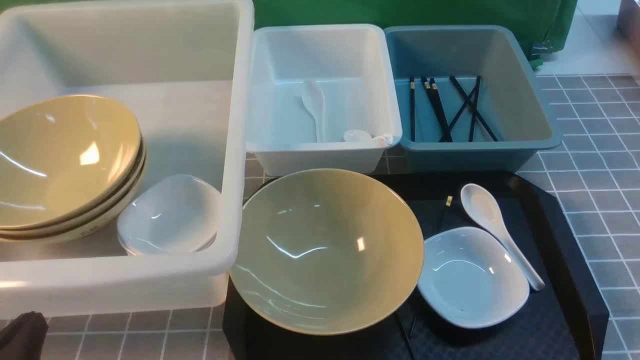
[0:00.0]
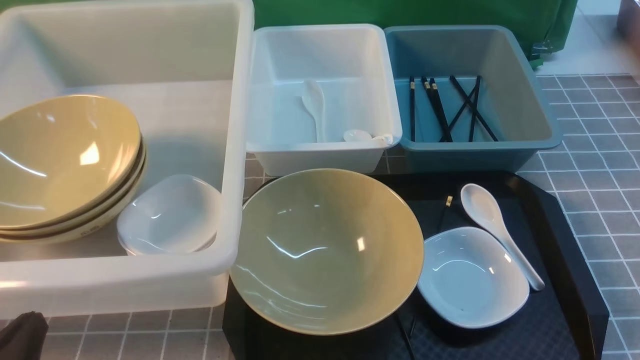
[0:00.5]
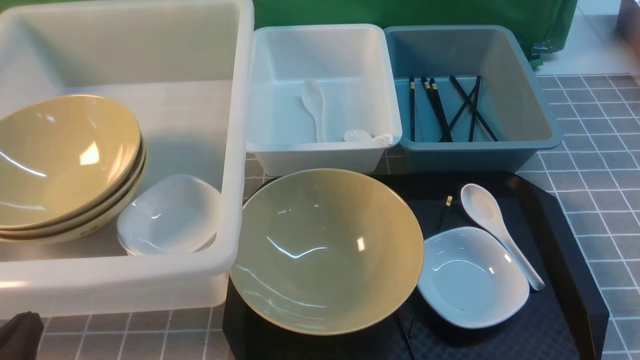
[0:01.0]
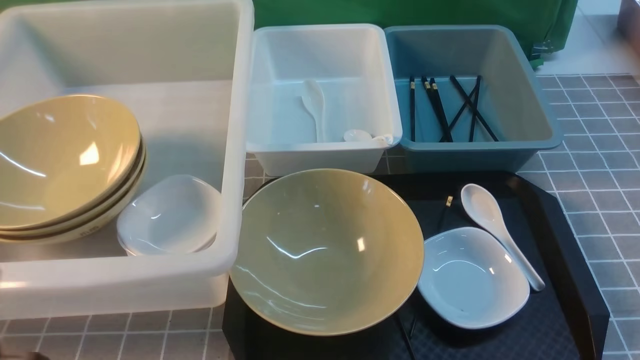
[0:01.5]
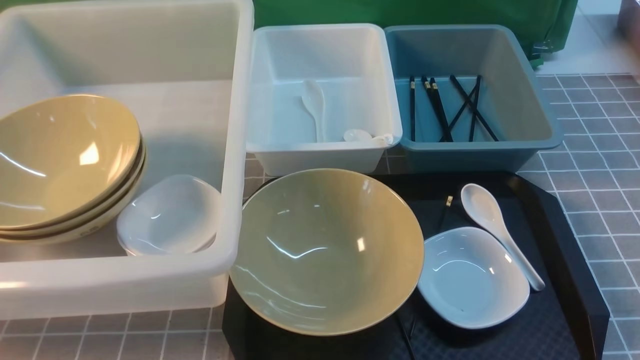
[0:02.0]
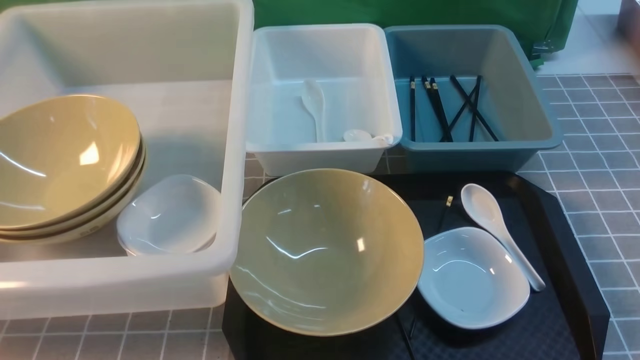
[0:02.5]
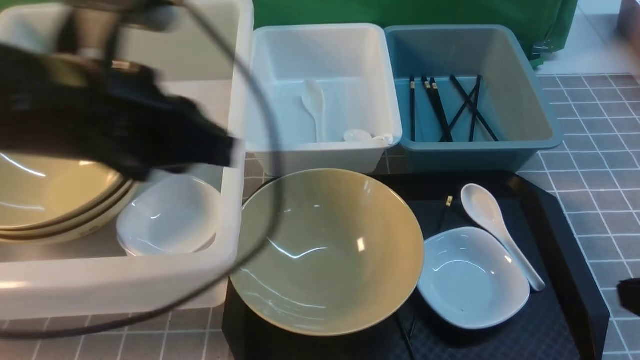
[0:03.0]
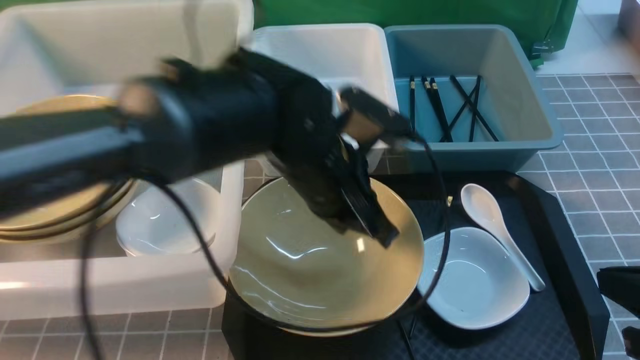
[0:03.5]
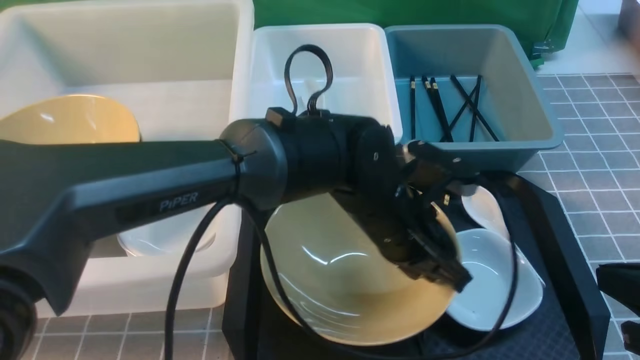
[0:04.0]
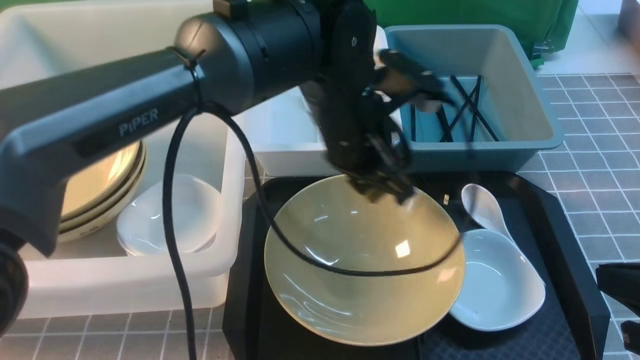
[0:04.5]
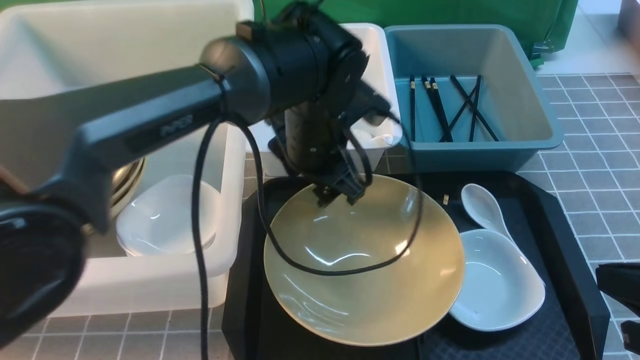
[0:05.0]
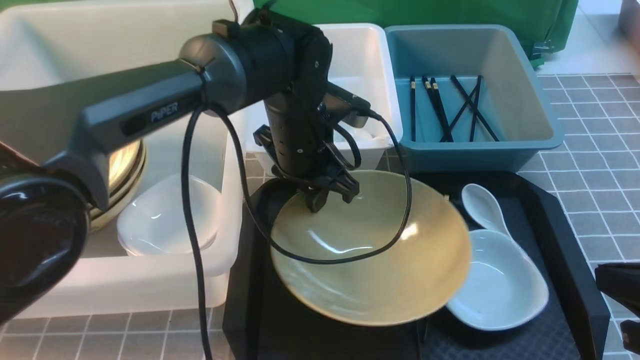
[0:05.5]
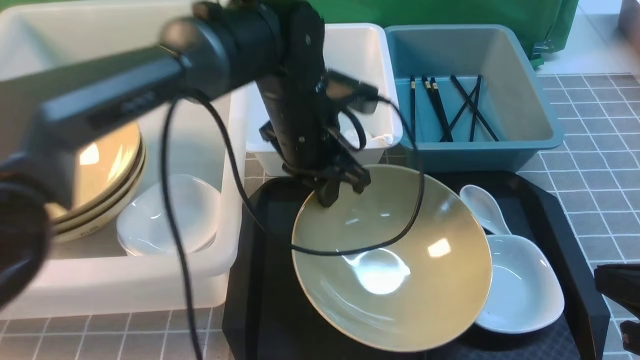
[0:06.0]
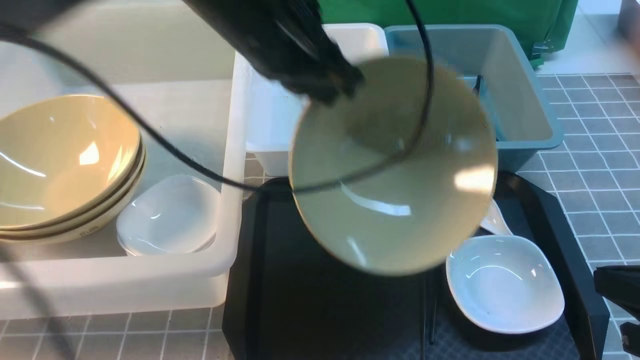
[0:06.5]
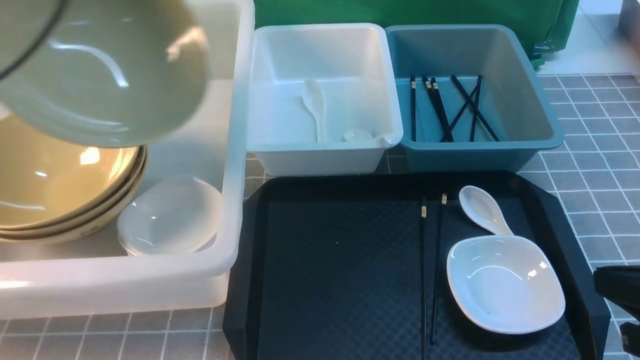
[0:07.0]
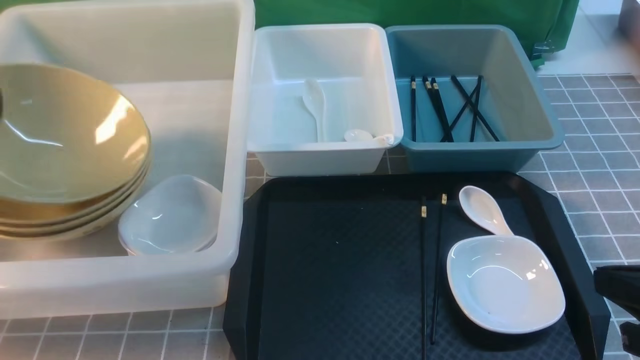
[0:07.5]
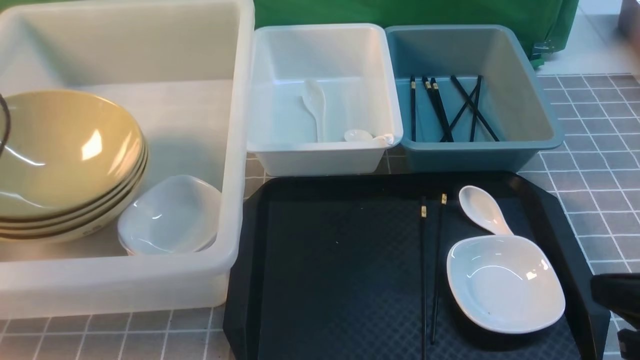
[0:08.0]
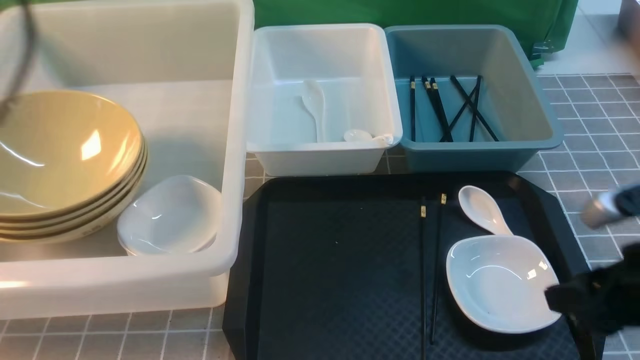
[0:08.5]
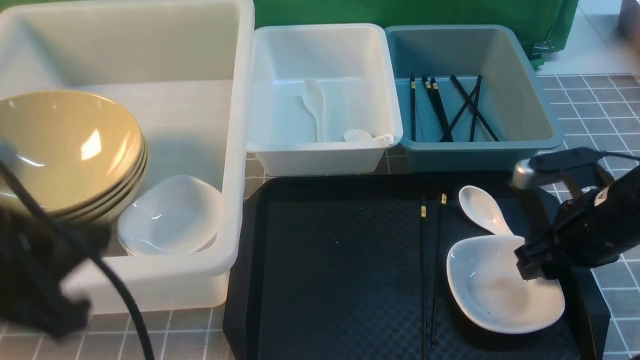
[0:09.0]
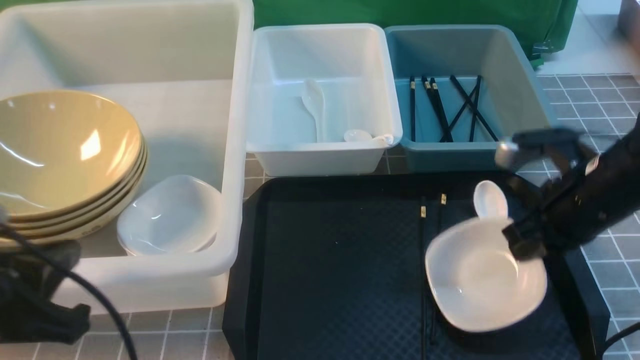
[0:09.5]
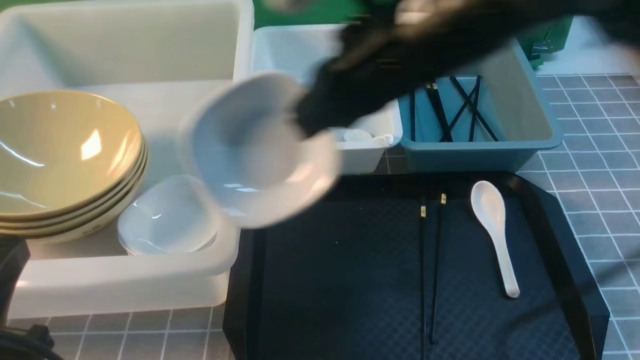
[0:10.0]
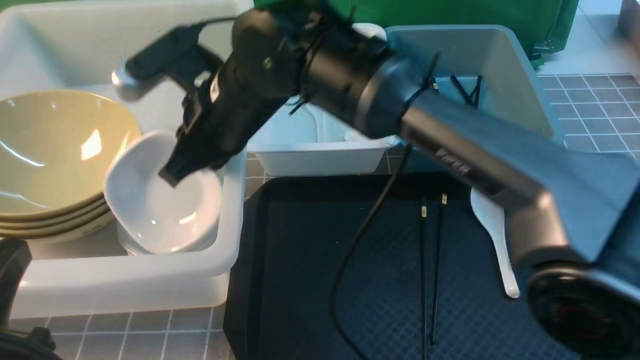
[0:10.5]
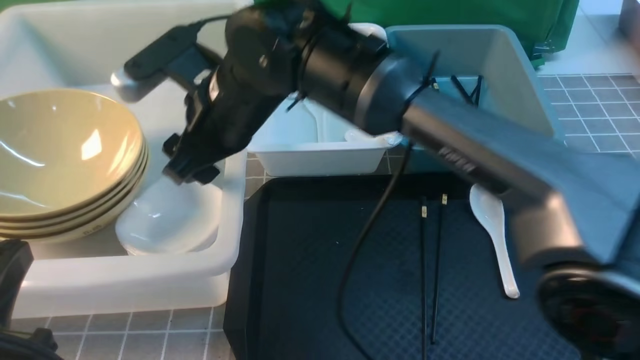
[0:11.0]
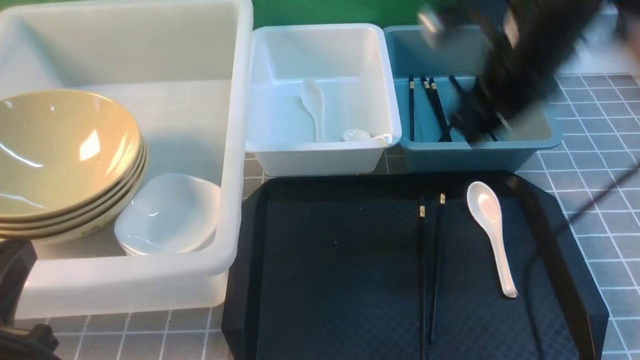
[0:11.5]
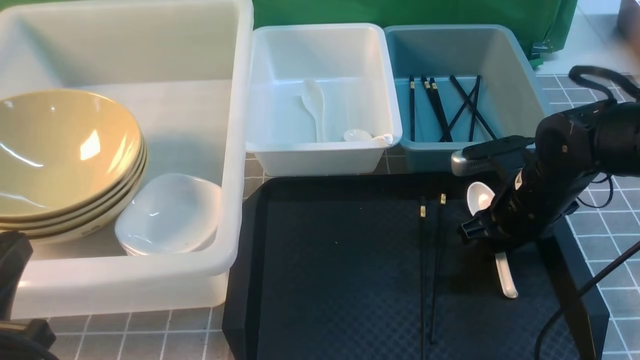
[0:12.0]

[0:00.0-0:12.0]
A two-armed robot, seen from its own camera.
Task of the whole recording: on grey table put chopsticks spoon bowls plates into blue grey white boxes.
Step, 0:00.0 to 0:05.5: use the left arm to grab the yellow noodle bowl on the left.
Step, 0:06.0 to 0:08.0: use the left arm to put the noodle bowl into the large storage box on the left.
Step, 0:08.5 to 0:09.5: use the right arm to grab the plate.
Step, 0:10.0 to 0:11.0: use the right arm to put the plate into the large storage box on the left.
0:00.0 to 0:02.0: The left gripper is displaced upward by roughly 15 cm.
0:02.0 to 0:04.0: The left gripper shifts roughly 40 cm to the right and forward. The right gripper heads forward, covering approximately 10 cm.
0:04.0 to 0:06.0: The left gripper moves to the left and forward, approximately 10 cm, and opens, then closes again.
0:06.0 to 0:08.0: The left gripper shifts about 40 cm to the left, and opens up.
0:08.0 to 0:10.0: The left gripper heads backward and to the right, covering about 25 cm, and closes. Meanwhile the right gripper travels to the left, forward and upward by approximately 30 cm, and opens, then closes once more.
0:10.0 to 0:12.0: The right gripper moves downward and to the right, roughly 25 cm, and opens.

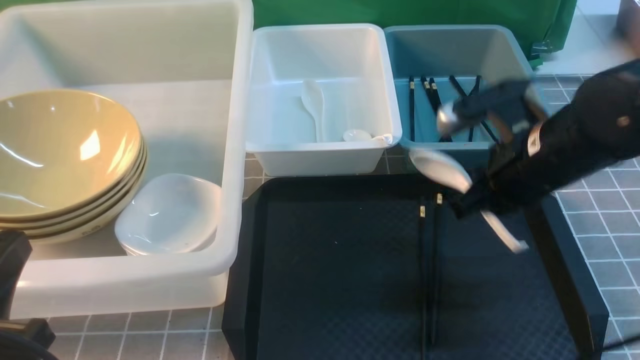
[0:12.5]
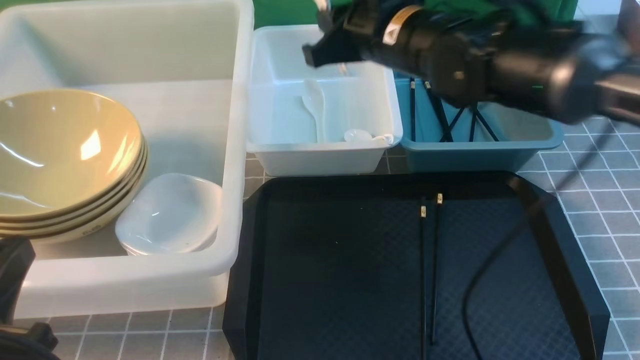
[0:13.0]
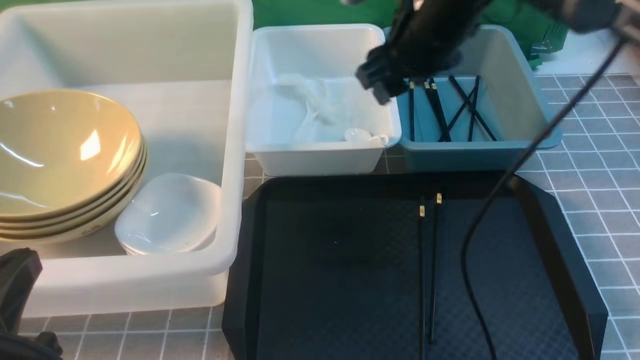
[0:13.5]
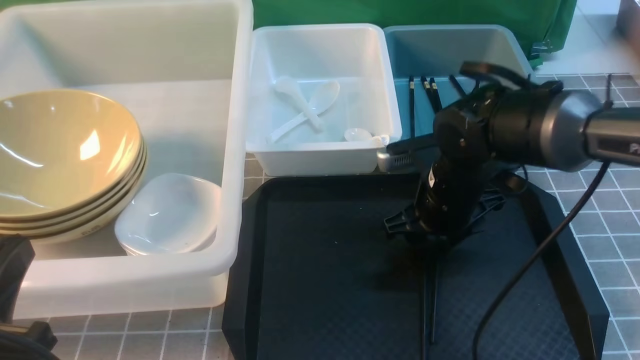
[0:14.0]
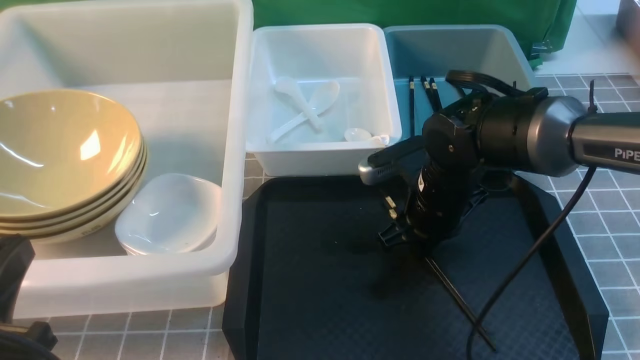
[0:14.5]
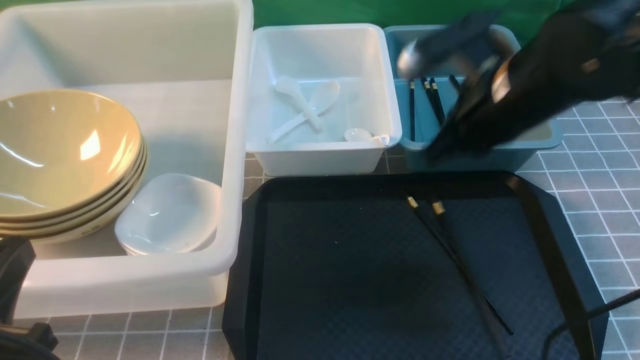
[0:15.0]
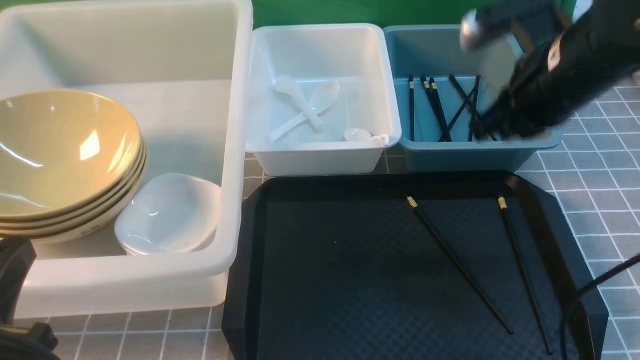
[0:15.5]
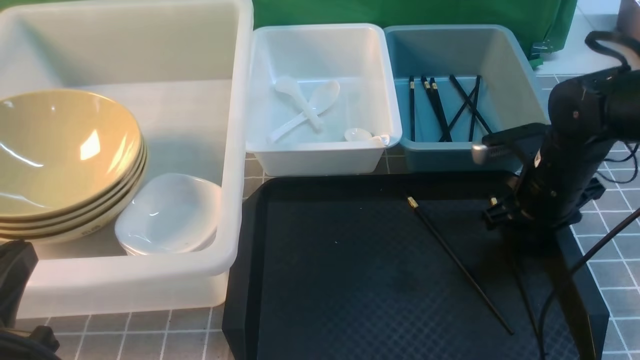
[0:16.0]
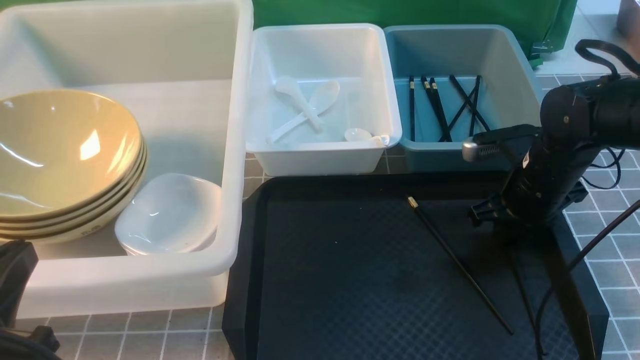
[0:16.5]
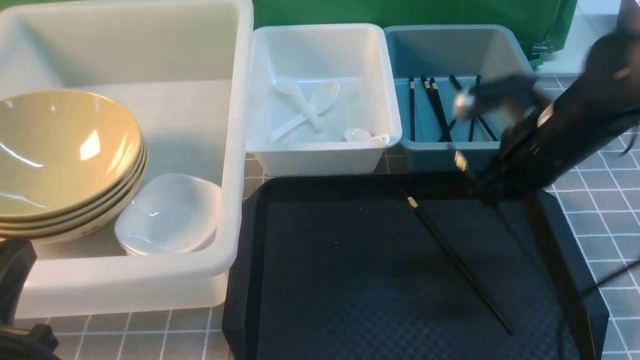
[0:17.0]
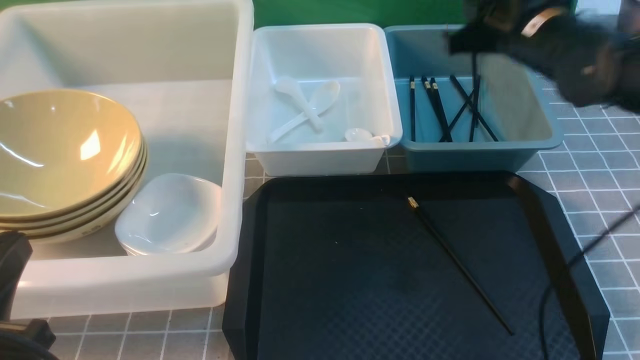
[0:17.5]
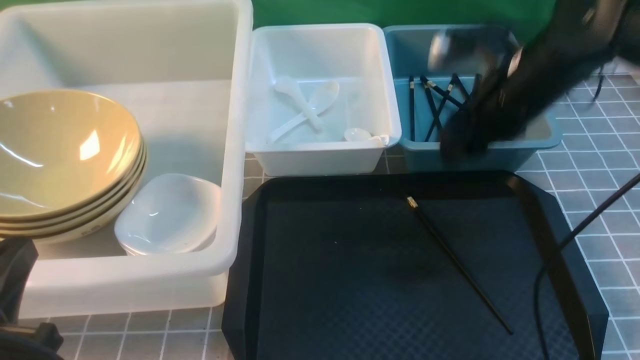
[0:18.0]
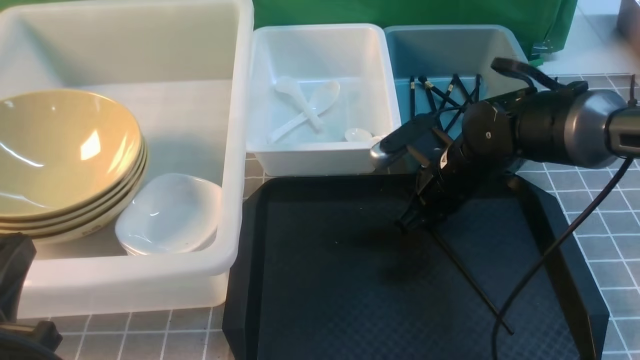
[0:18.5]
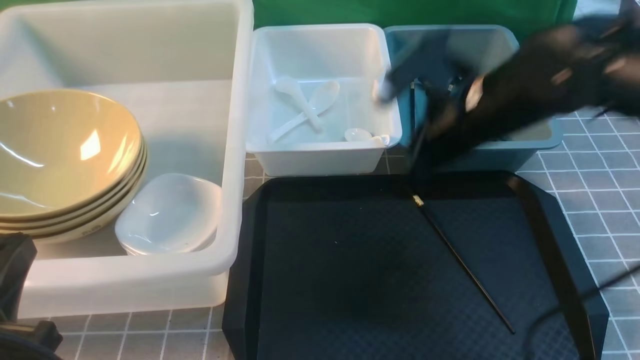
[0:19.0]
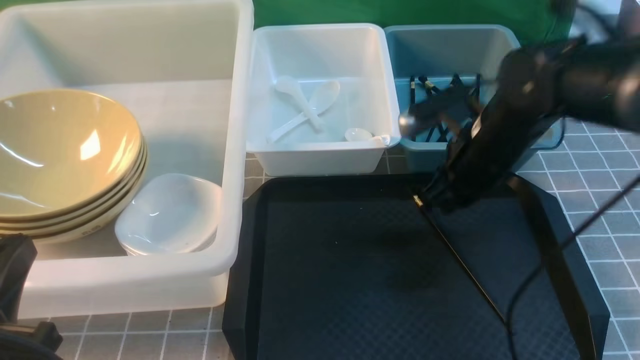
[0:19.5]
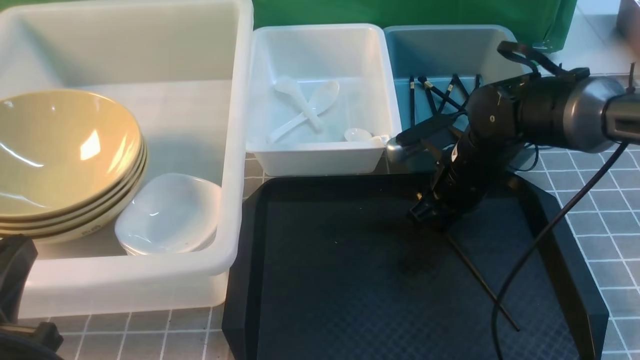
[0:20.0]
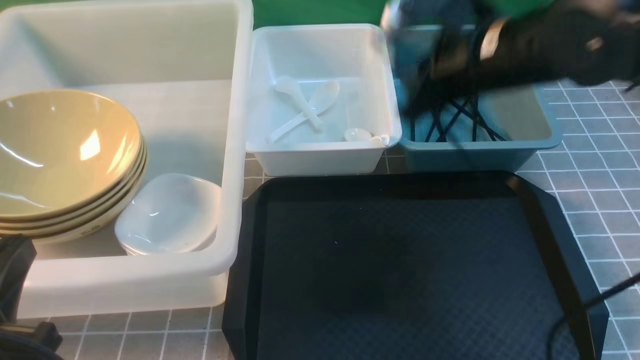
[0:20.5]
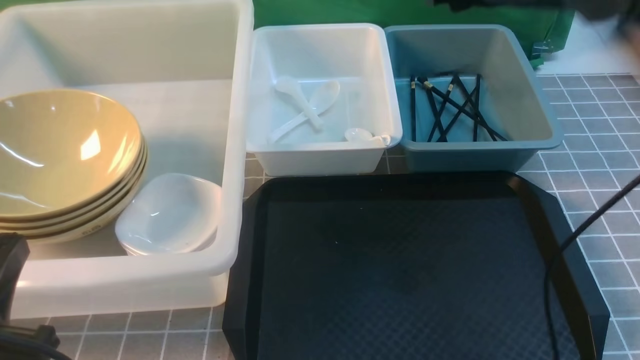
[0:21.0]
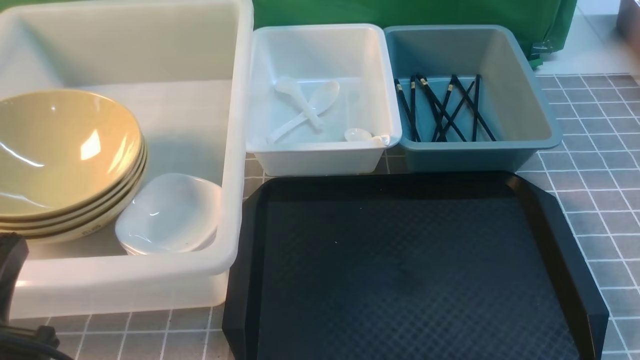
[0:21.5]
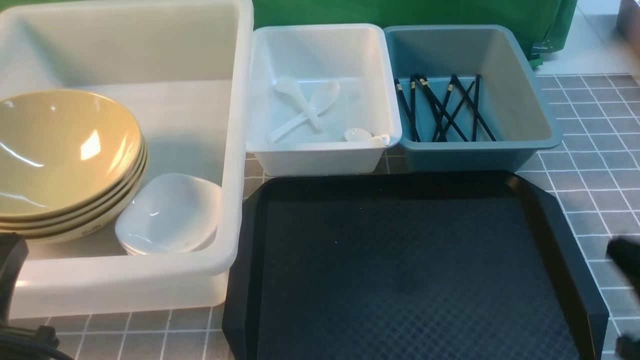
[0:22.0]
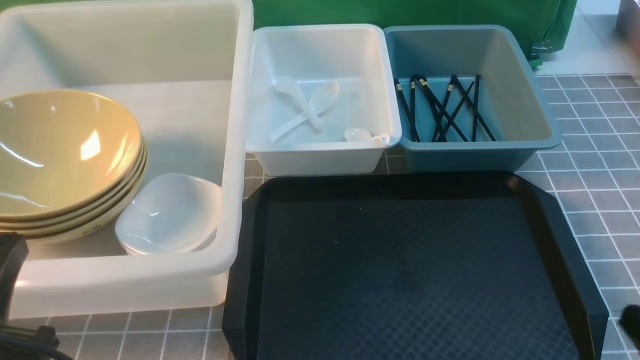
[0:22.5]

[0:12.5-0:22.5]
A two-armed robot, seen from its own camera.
Task of the whole recording: on grey table put chopsticks spoon bowls plates into blue grey white boxes.
Step, 0:12.5 to 0:13.0: use the right arm to put the soup spoon into the small storage box in the middle.
Step, 0:13.5 to 0:17.0: use the right arm to grab a chopstick.
Step, 0:18.0 to 0:20.0: use the right arm to grab a chopstick.
Step, 0:20.5 to 0:21.0: use the right arm to put a chopstick into the small storage box on the right.
0:12.5 to 0:14.5: The right gripper travels downward by approximately 10 cm, and opens, then closes once more.
0:14.5 to 0:16.5: The right gripper heads to the right, covering some 10 cm, goes upward and returns, about 10 cm each way, and opens, then closes again.
0:16.5 to 0:18.5: The right gripper heads to the left, covering about 10 cm, goes upward and returns, some 15 cm each way, and opens and closes again.
0:18.5 to 0:20.5: The right gripper moves up and down over some 15 cm, changing direction 2 times.
0:20.5 to 0:22.5: The right gripper is displaced backward, to the right and downward by some 35 cm, and opens, then closes once more.
